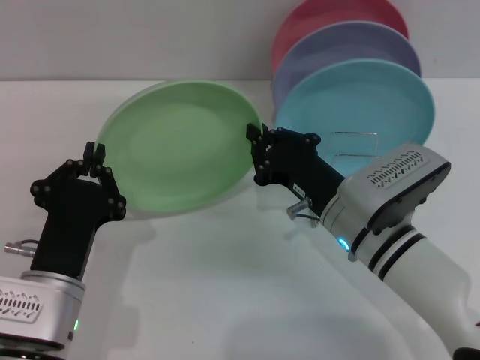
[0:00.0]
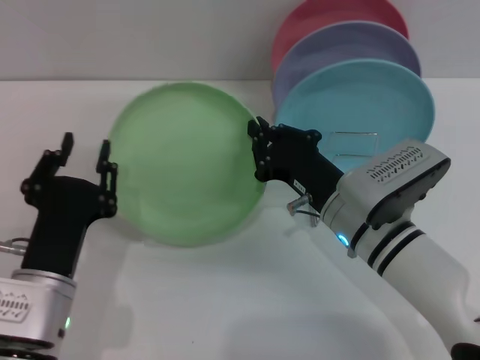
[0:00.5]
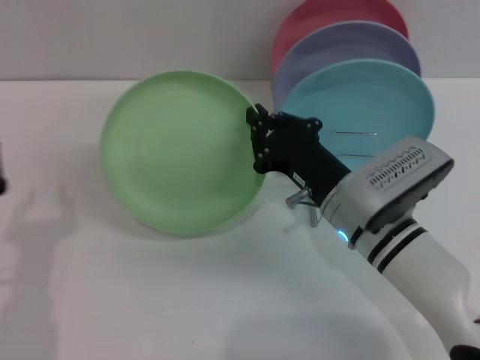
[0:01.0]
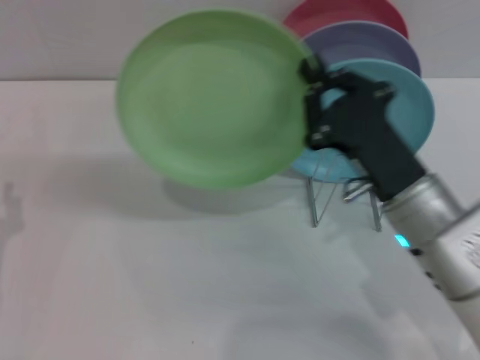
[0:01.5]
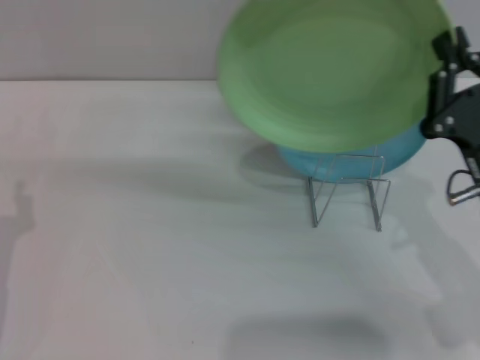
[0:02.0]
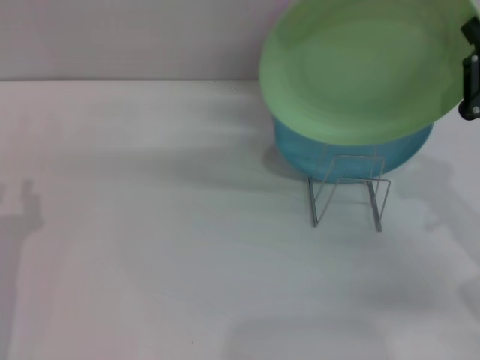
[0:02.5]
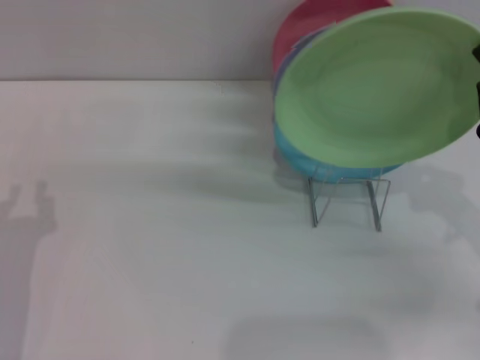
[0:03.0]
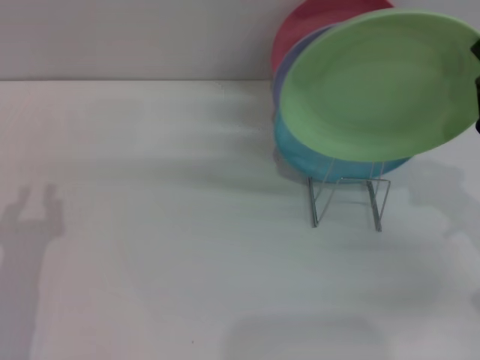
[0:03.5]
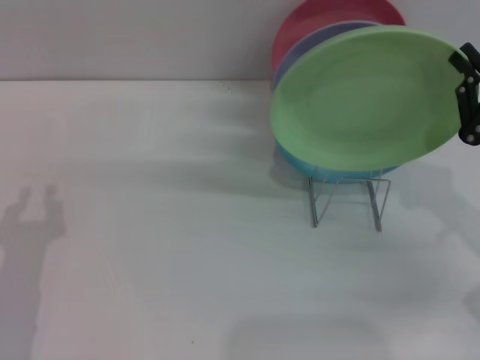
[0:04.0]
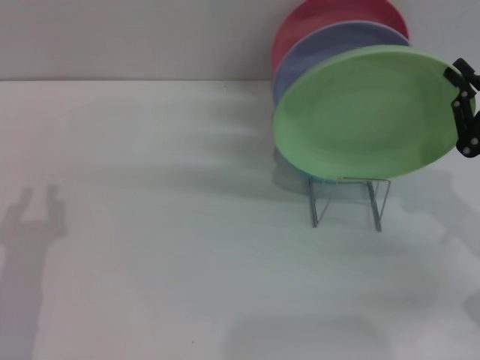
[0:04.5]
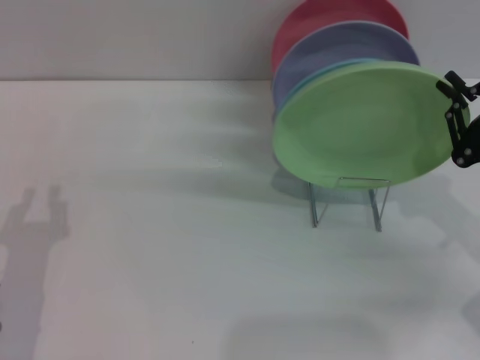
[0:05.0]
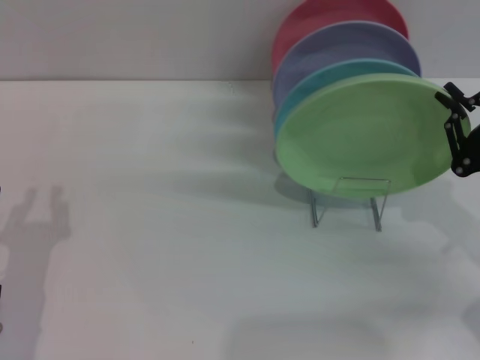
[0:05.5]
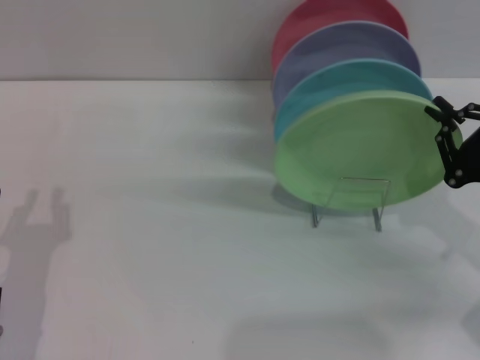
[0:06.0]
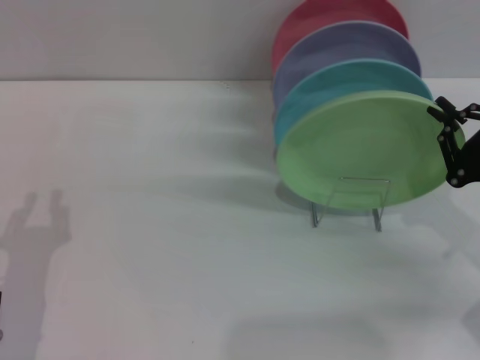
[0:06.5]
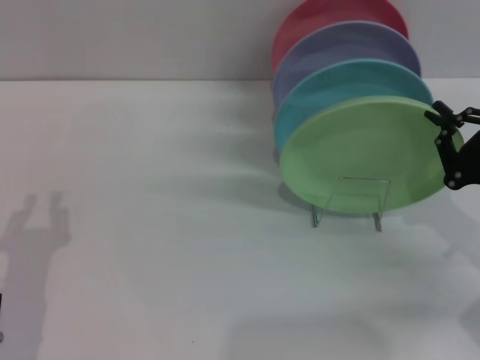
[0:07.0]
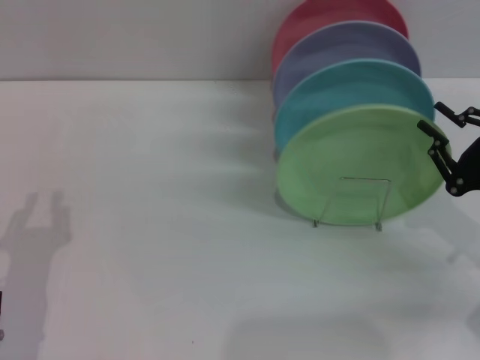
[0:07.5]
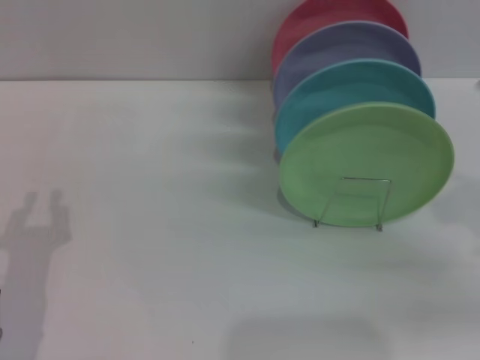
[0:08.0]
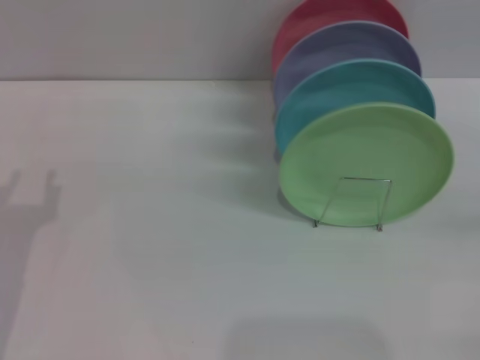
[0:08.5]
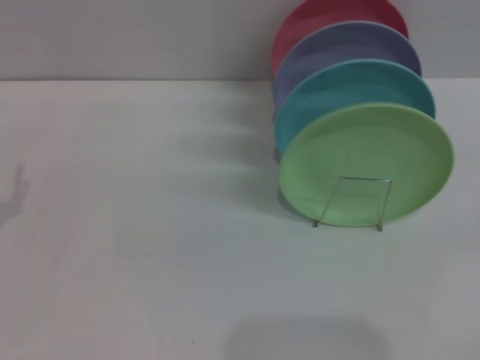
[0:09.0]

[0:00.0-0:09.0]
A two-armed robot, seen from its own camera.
Task of the whole recording: Grip the plate with one hand, pass it to the other, then set it on the shelf.
Step, 0:01.5 to 0:07.5: Place the plate on the shelf with the right gripper.
0:00.0 to 0:02.0: The left gripper goes roughly 10 cm to the left. Meanwhile the right gripper is displaced to the right and backward by about 10 cm.
0:02.0 to 0:04.5: The right gripper moves to the right, approximately 10 cm.
0:04.5 to 0:07.0: The grippers move only a little.
0:07.0 to 0:09.0: The right gripper heads to the right and backward, covering some 15 cm, and opens; the left gripper travels to the left by roughly 5 cm, and opens.
